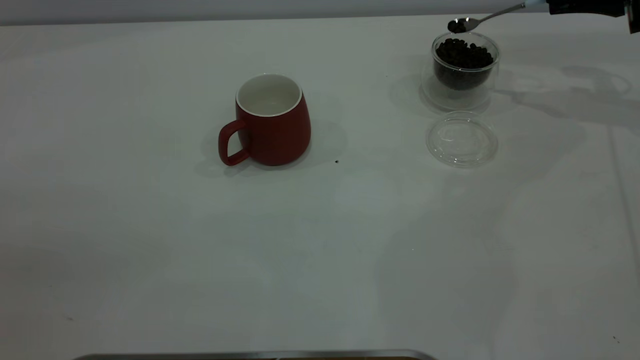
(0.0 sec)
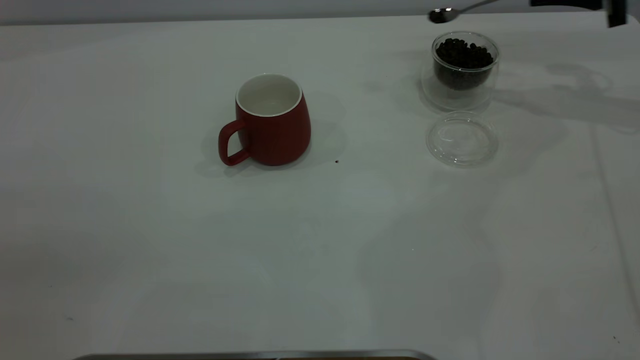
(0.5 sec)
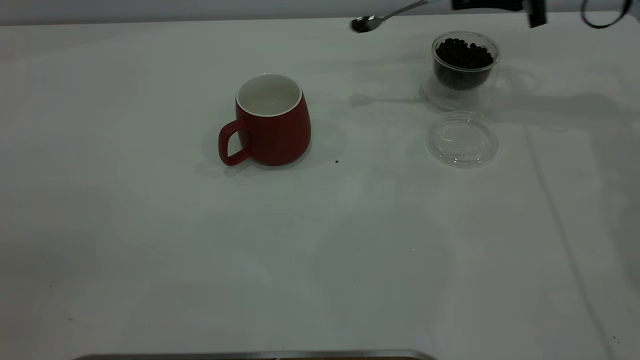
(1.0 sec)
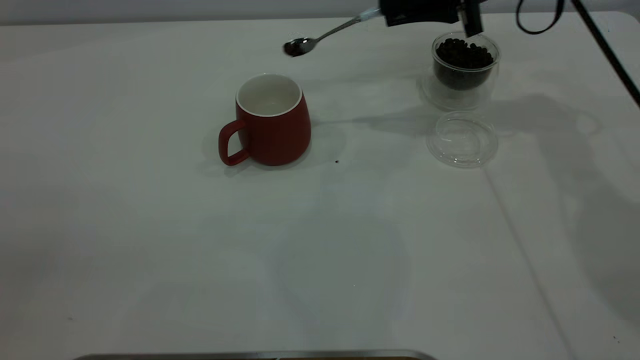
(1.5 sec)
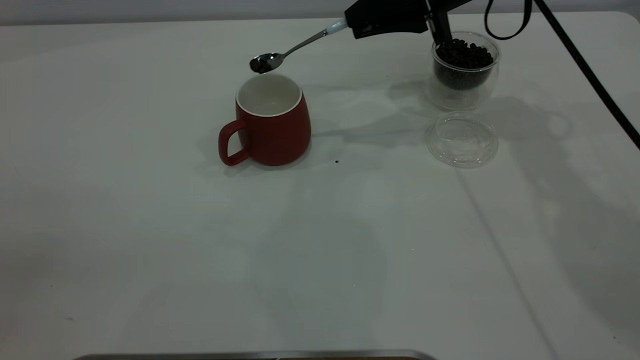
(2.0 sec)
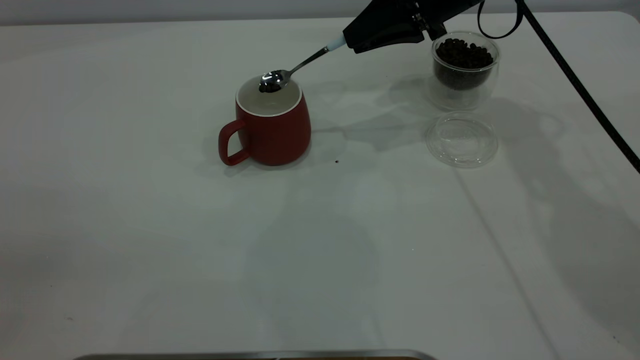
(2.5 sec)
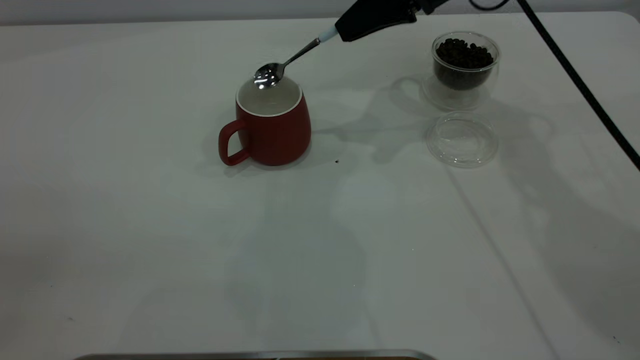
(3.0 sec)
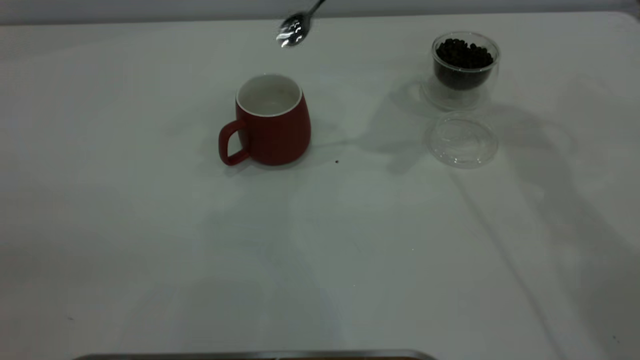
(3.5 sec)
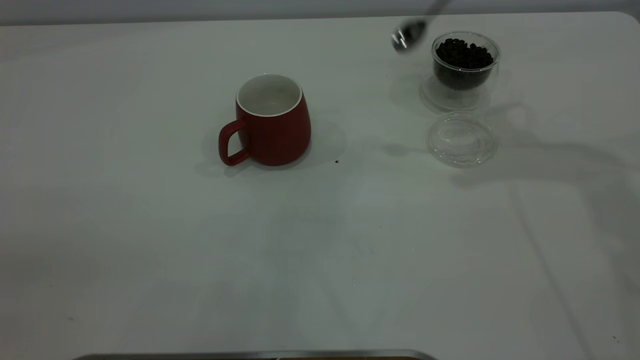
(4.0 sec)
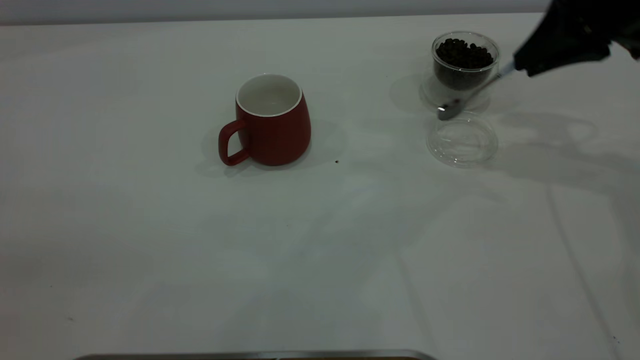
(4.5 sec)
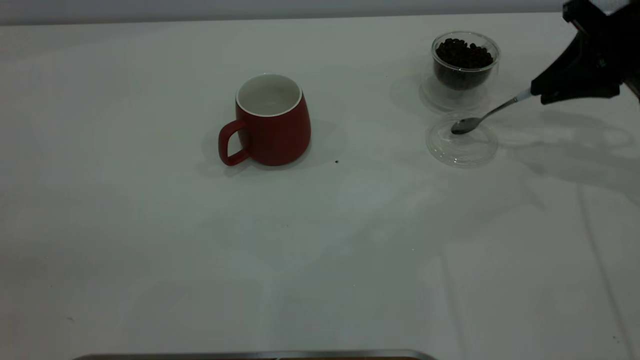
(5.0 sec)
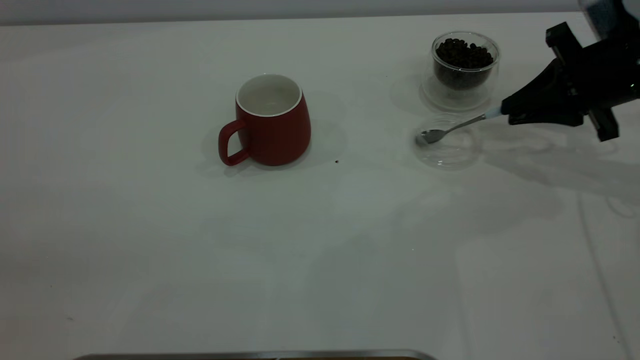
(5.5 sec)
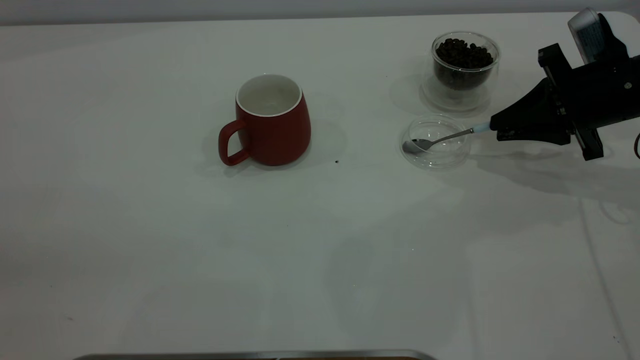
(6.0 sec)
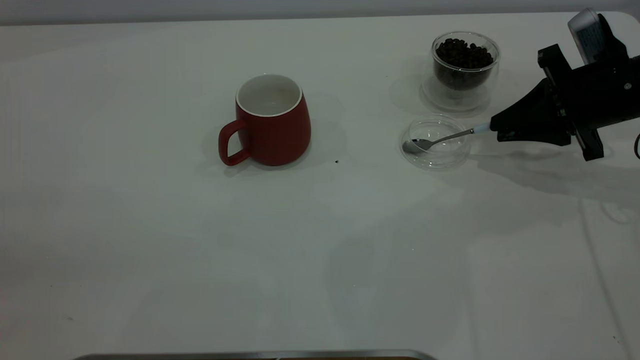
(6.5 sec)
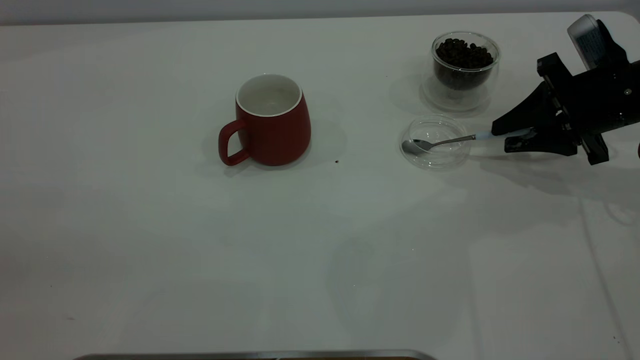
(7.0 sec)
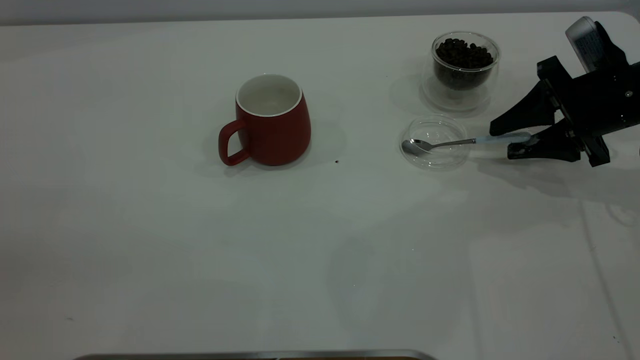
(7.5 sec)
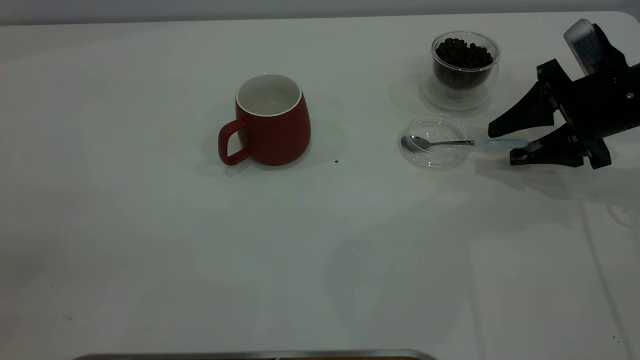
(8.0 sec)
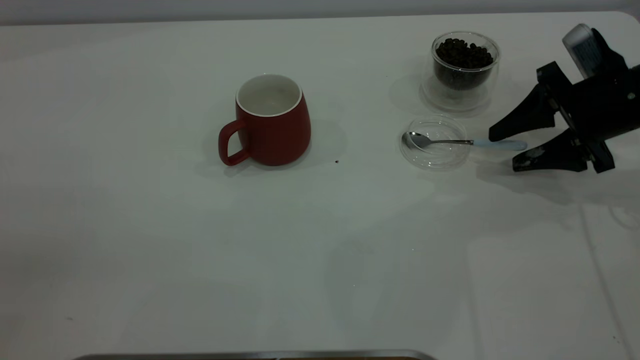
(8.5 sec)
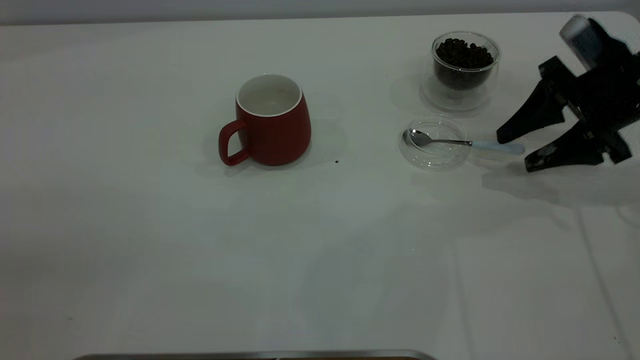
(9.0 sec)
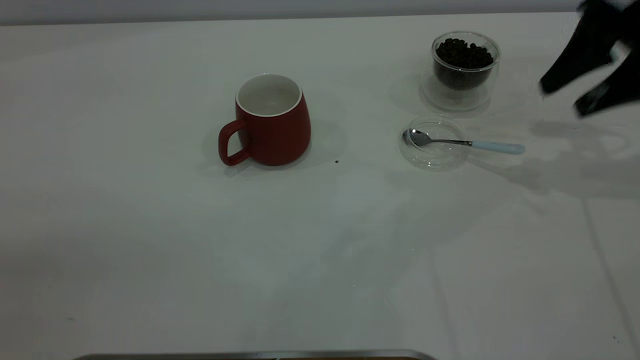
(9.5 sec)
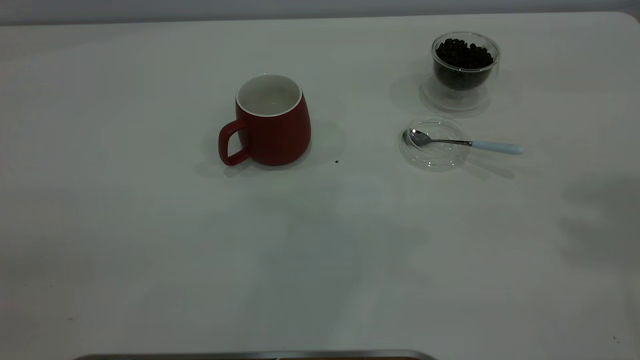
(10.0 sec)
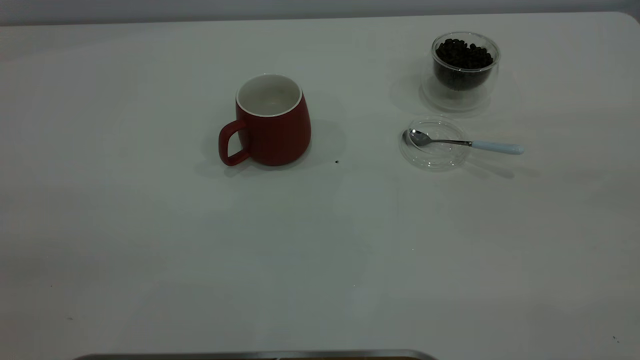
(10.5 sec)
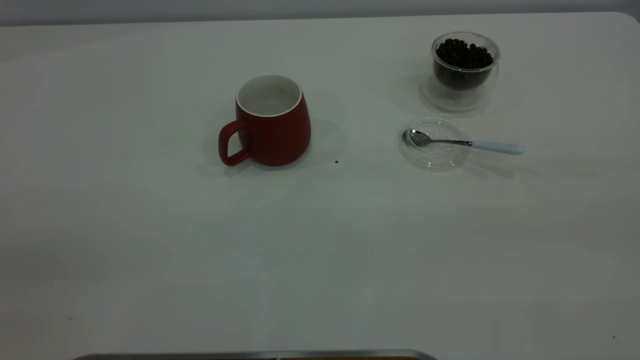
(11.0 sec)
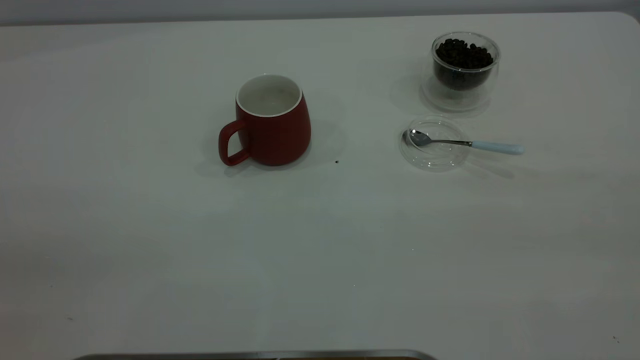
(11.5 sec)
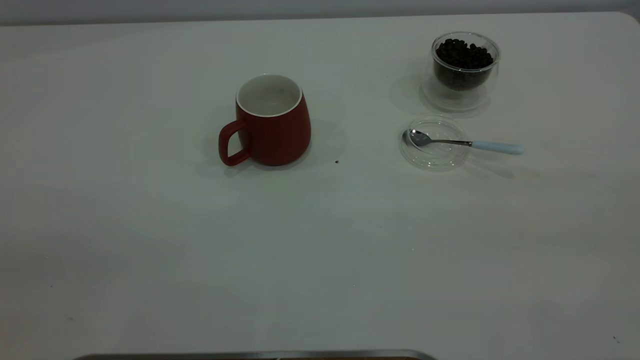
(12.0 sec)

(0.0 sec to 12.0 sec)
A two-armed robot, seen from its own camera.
Task of the whole recording: the left gripper place the red cup in the center of the table, the right gripper take the blue spoon from the cup lid and scoop out the coffee beans from the coffee cup and put them into the red cup, the right gripper put the spoon back into the cup lid.
Step, 0.0 sec - 3.0 sec: Scoop a spoonful of beans into the cup.
Step, 3.5 sec - 9.0 sec: Place the spoon back in its original place.
0.0 sec - 2.0 sec: The right gripper heads to the left, covering some 25 cm.
2.0 sec - 4.0 sec: The right gripper moves upward, to the right and backward, approximately 15 cm.
4.0 sec - 6.0 sec: The right gripper heads downward, covering roughly 20 cm.
6.0 sec - 8.0 sec: The right gripper opens its fingers.
8.0 sec - 10.0 sec: The right gripper is displaced upward by roughly 35 cm.

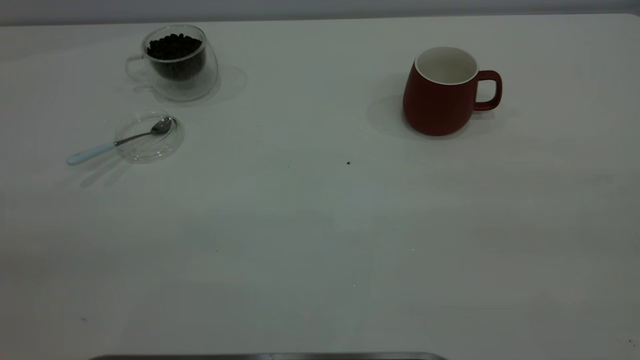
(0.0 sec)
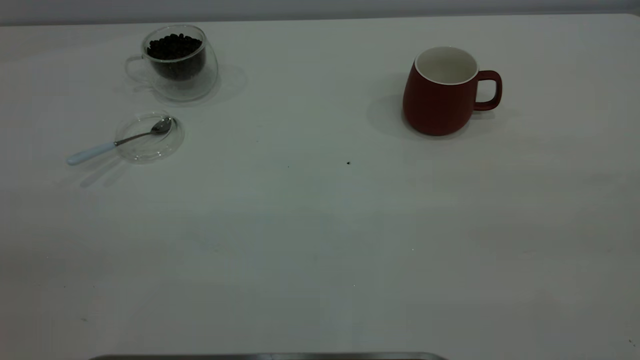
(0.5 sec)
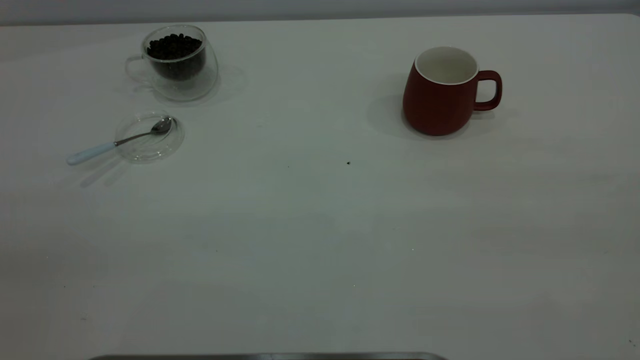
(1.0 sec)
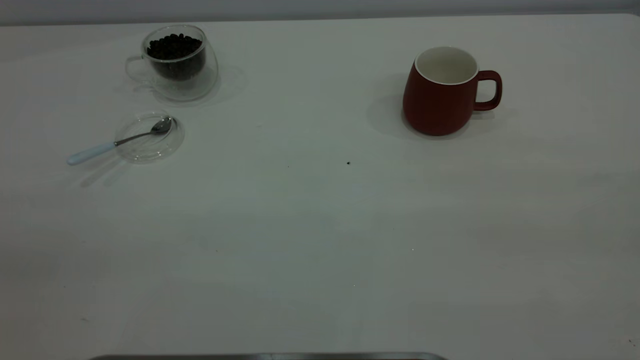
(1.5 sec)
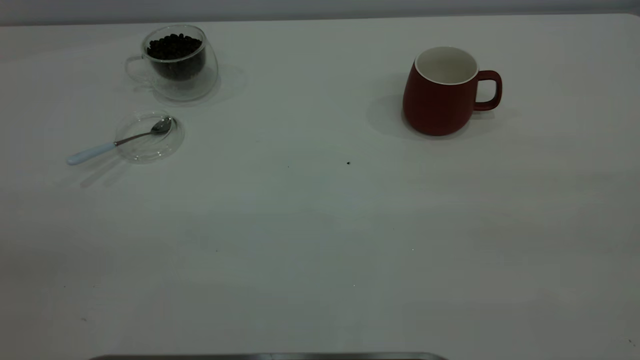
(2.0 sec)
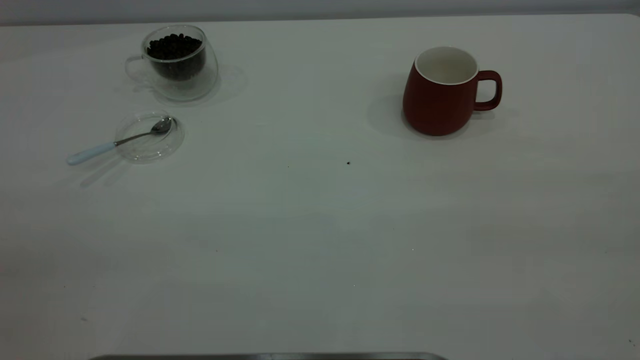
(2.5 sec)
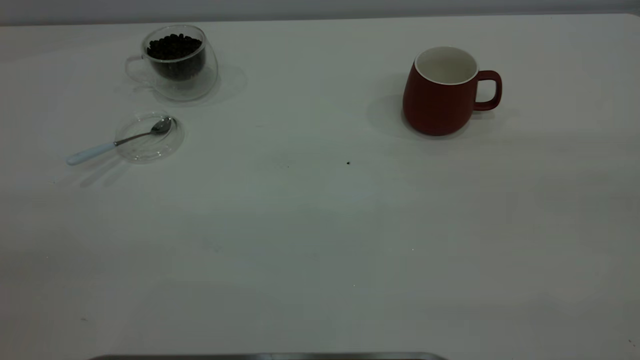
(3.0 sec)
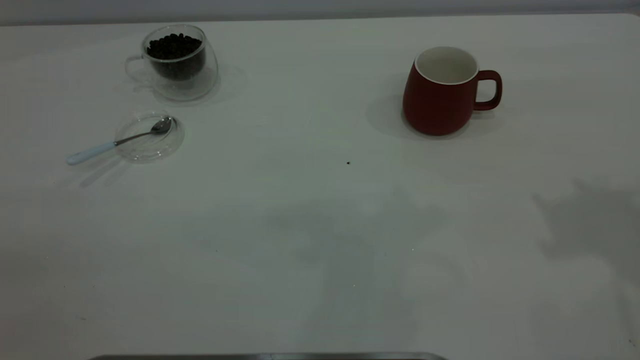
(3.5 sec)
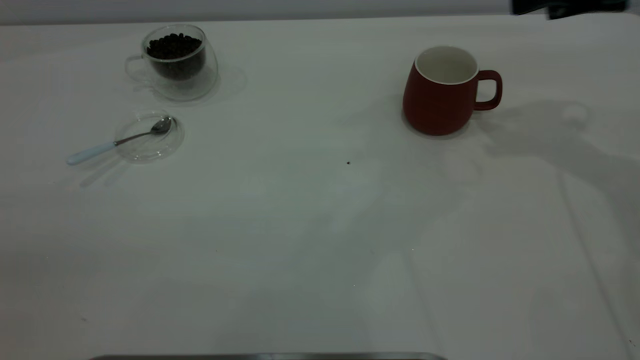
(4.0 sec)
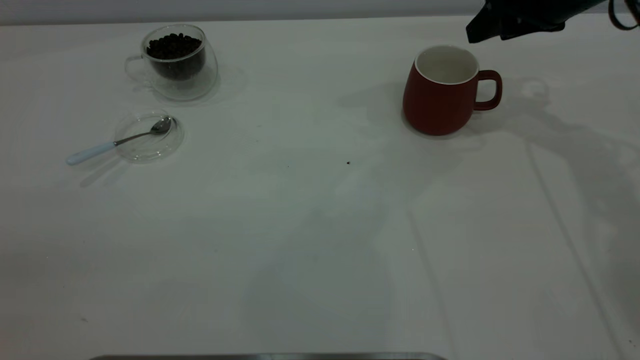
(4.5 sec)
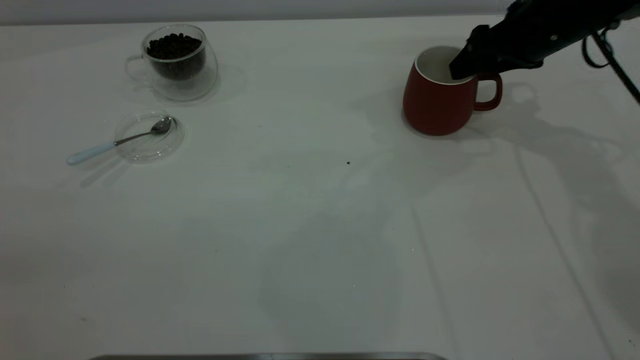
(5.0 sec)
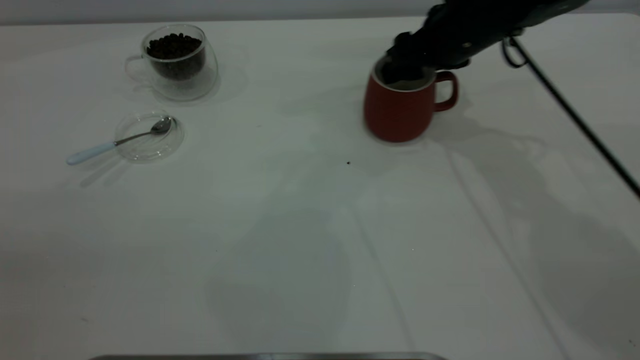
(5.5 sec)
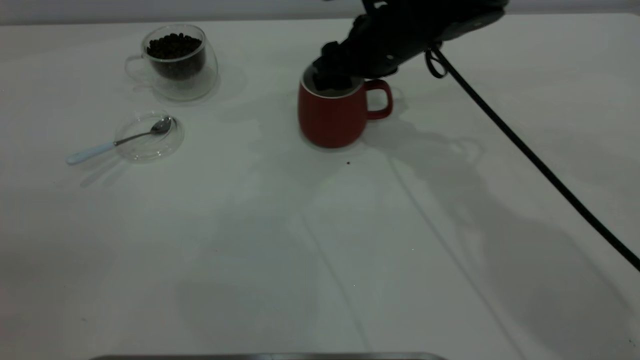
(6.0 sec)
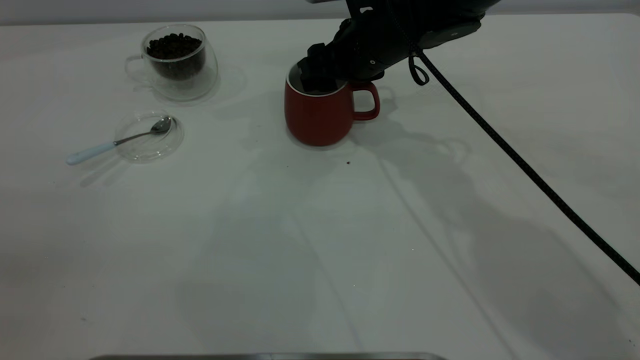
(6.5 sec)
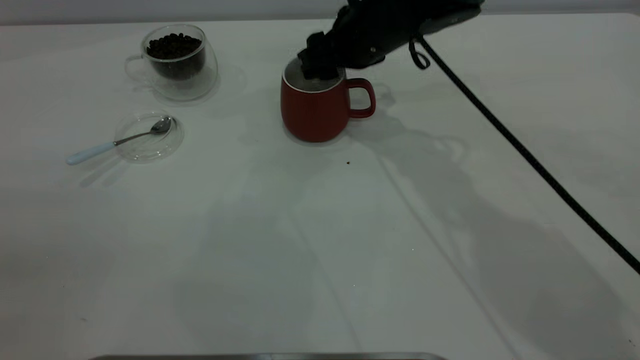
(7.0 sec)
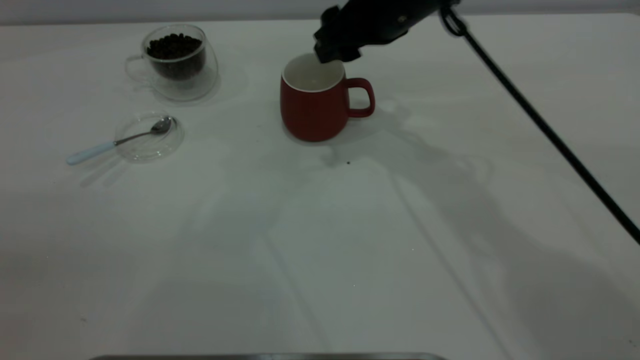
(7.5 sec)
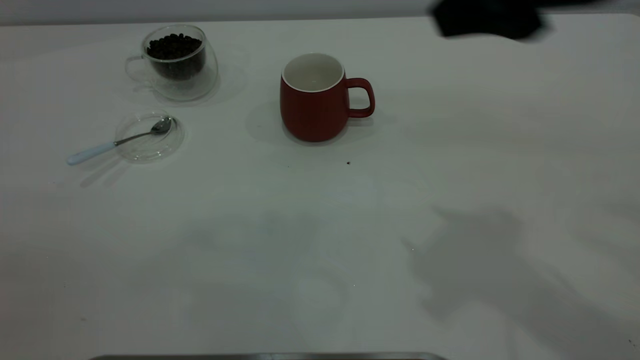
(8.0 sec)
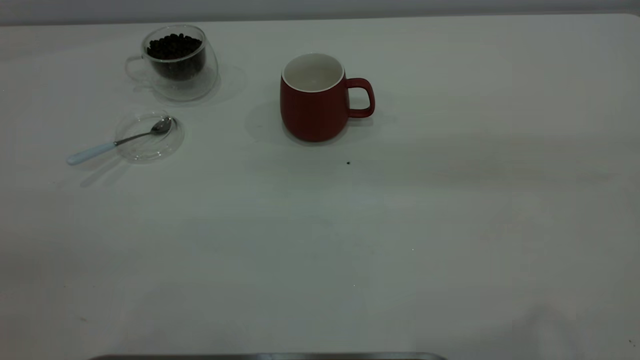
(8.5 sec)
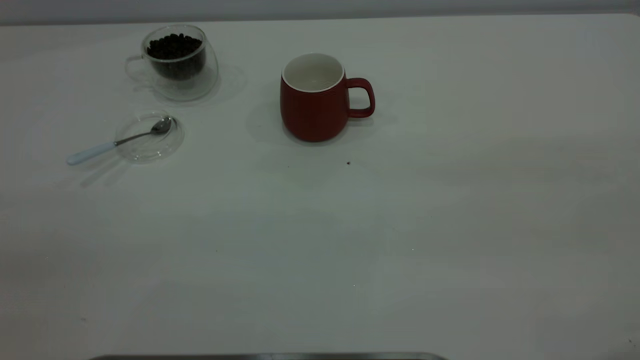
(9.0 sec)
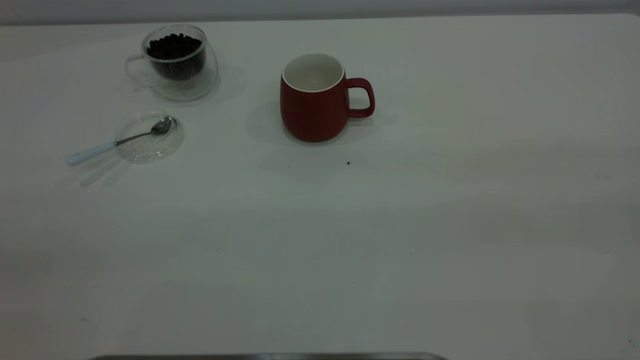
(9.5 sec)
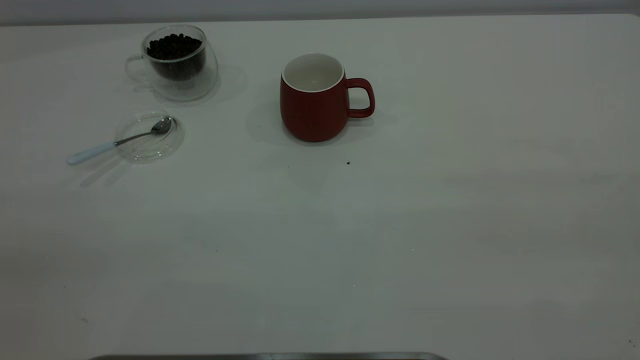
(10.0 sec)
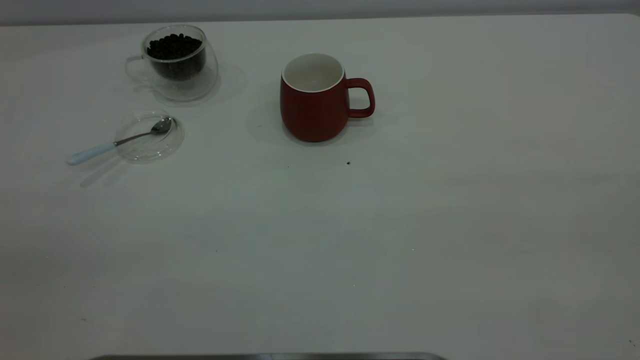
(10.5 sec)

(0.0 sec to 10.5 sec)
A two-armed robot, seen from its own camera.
Task of the whole recording: the right gripper place the red cup in the center of the table, the left gripper take the blue spoon from the cup lid and scoop out the coffee beans from the coffee cup and put them into the red cup, the left gripper put the spoon back into the cup lid.
Step, 0.0 sec - 7.5 sec: Move the cup to the center of view.
0.0 sec - 2.0 sec: Both grippers stay put.
2.0 sec - 4.0 sec: The right gripper goes roughly 40 cm forward.
4.0 sec - 6.5 sec: The right gripper travels to the left and downward by some 25 cm.
6.5 sec - 8.5 sec: The right gripper moves backward, upward and to the right, approximately 40 cm.
